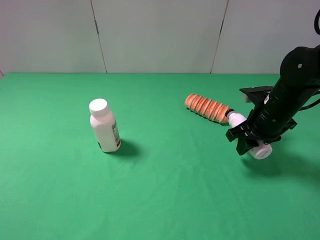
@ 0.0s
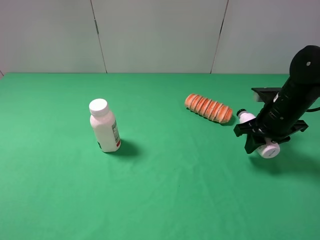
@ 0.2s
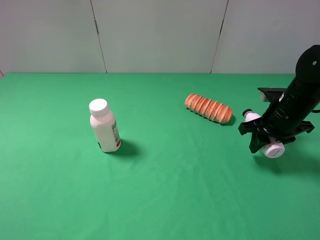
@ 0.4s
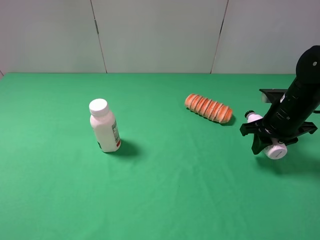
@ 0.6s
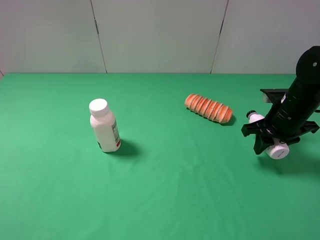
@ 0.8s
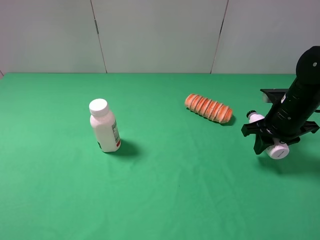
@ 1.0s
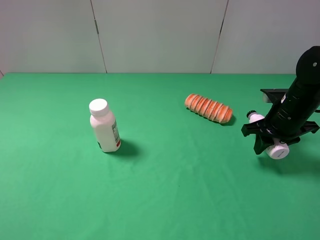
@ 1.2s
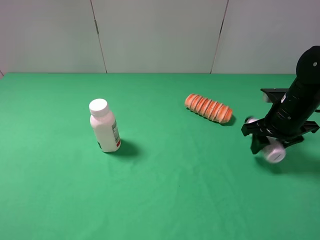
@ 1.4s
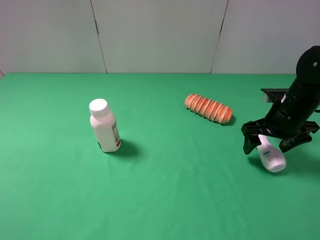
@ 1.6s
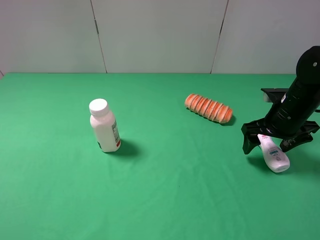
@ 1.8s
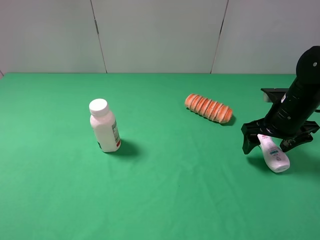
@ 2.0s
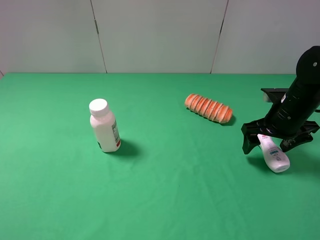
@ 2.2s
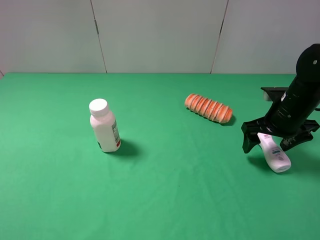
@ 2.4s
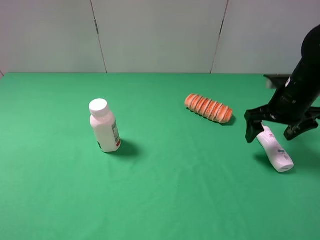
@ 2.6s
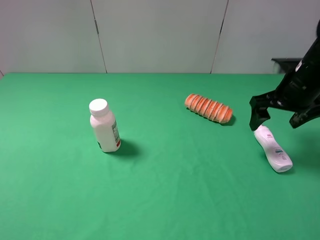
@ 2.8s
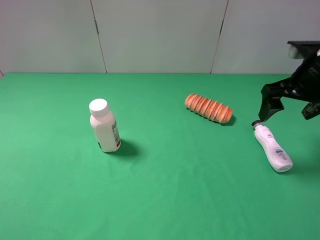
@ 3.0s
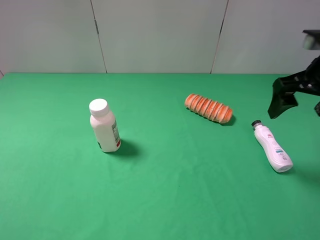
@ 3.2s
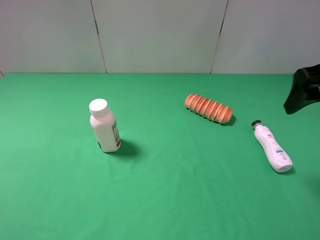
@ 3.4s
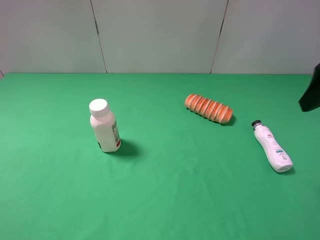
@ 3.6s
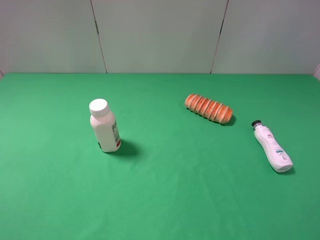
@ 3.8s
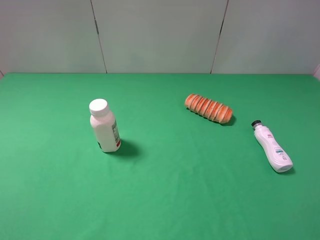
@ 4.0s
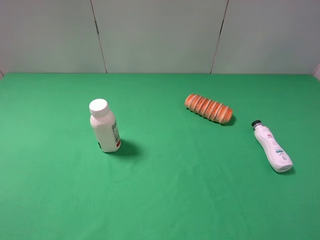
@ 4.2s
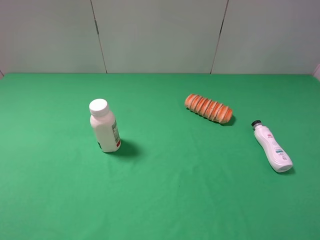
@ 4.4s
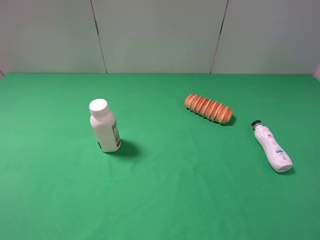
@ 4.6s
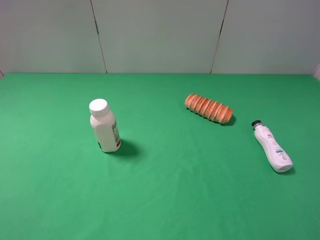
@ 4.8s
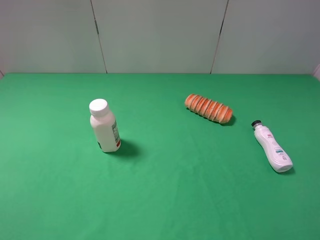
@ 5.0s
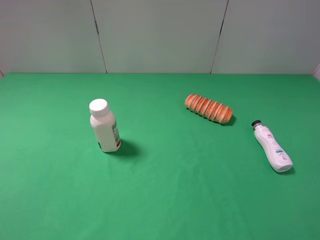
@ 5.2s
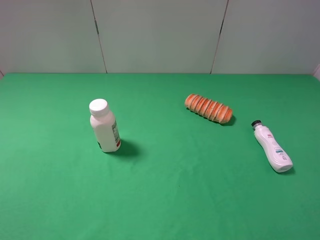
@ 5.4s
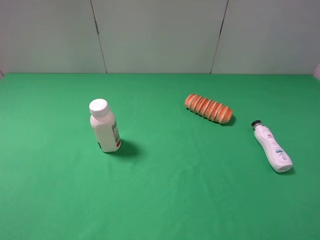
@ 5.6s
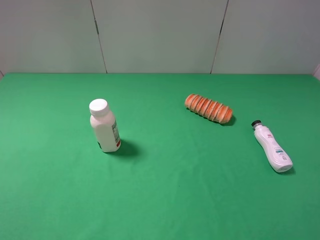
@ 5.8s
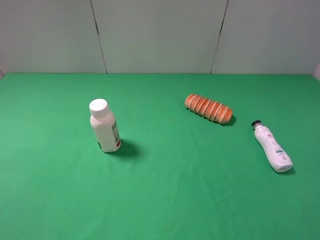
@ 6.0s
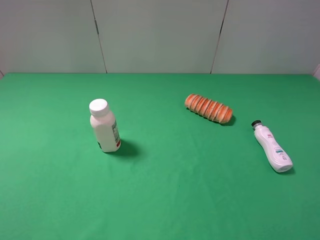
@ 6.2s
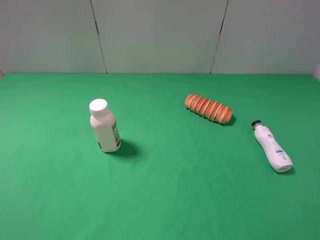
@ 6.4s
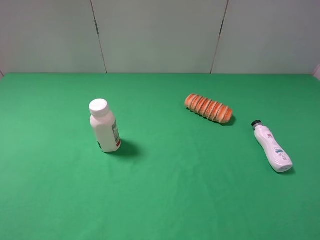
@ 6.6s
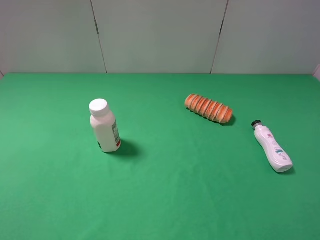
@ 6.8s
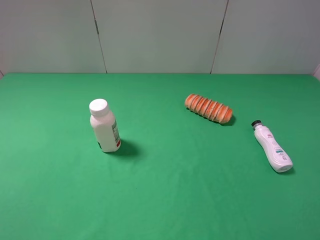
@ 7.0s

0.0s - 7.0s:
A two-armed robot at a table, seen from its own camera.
Task of the whole recording: use the left gripper to pick up the item and transfer it from the left gripper to the right gripper.
0.0s - 1.4s: The right gripper opens.
1.4s - 2.8s: The right gripper shifts some 5 cm upward.
2.8s - 4.2s: The right gripper heads backward and upward, covering roughly 30 cm.
5.6s - 7.0s: The two grippers keep their place.
